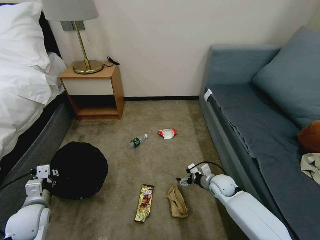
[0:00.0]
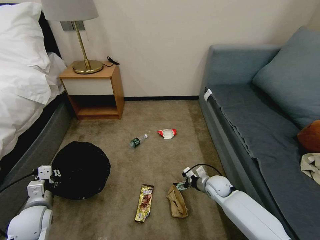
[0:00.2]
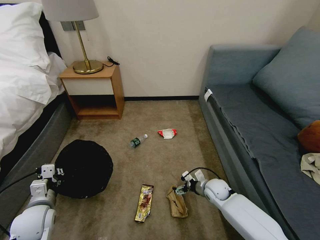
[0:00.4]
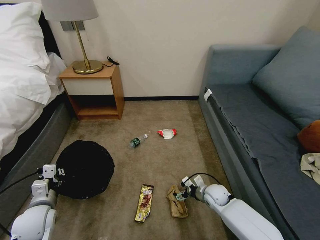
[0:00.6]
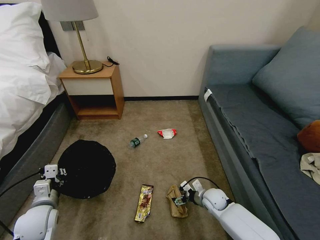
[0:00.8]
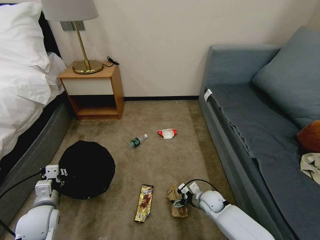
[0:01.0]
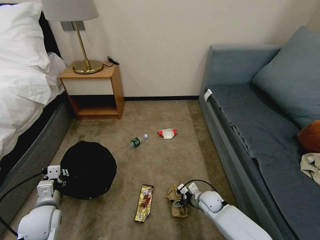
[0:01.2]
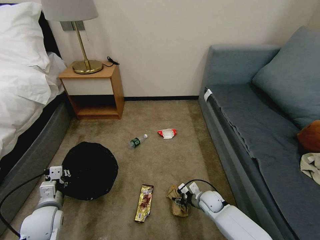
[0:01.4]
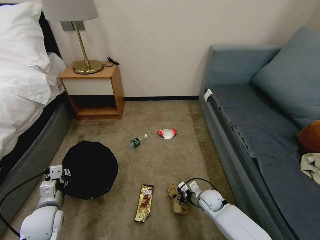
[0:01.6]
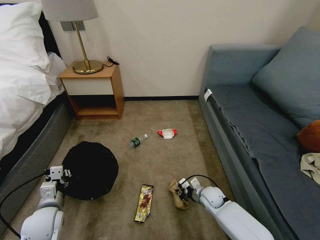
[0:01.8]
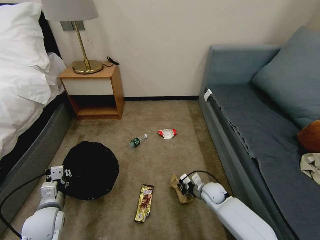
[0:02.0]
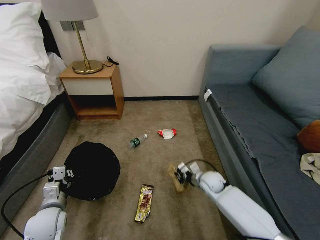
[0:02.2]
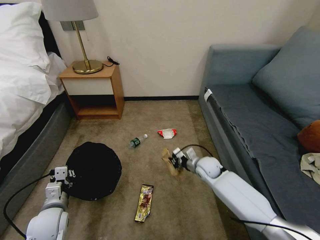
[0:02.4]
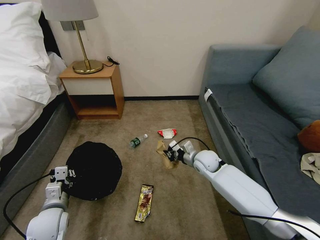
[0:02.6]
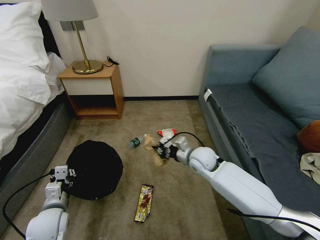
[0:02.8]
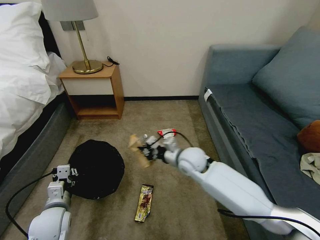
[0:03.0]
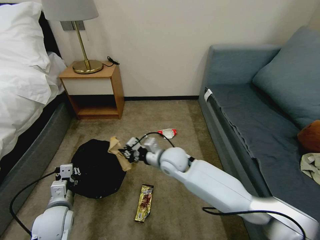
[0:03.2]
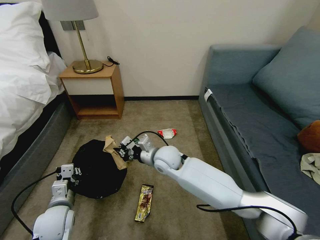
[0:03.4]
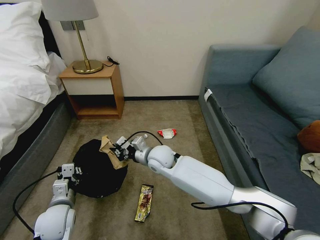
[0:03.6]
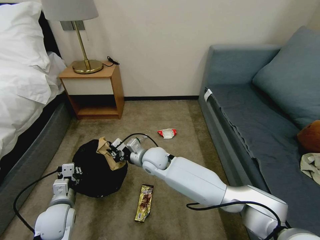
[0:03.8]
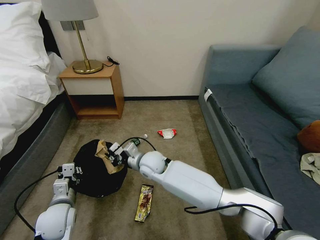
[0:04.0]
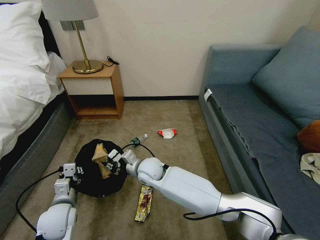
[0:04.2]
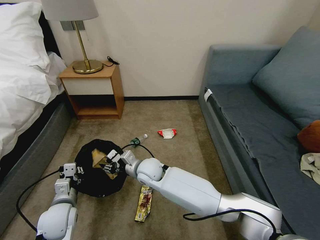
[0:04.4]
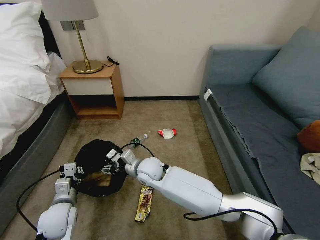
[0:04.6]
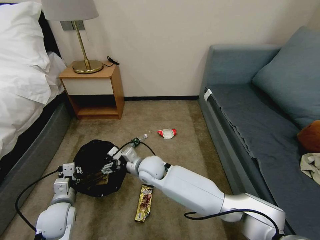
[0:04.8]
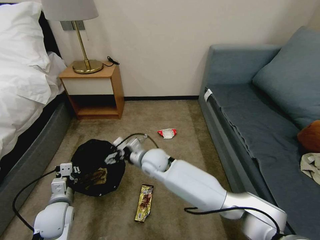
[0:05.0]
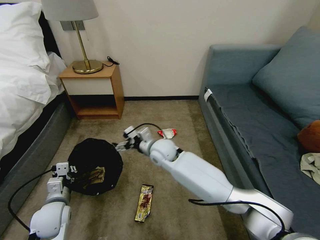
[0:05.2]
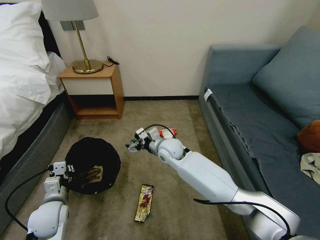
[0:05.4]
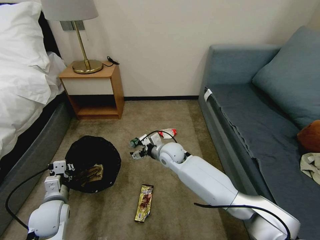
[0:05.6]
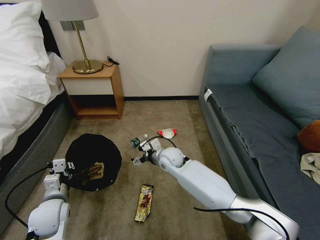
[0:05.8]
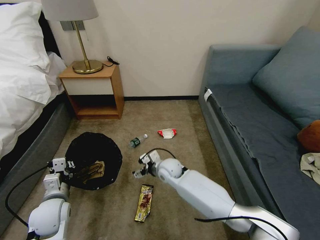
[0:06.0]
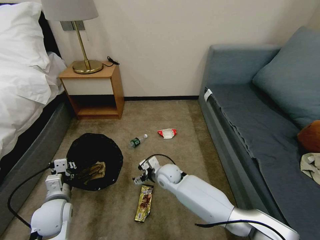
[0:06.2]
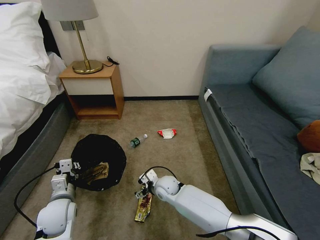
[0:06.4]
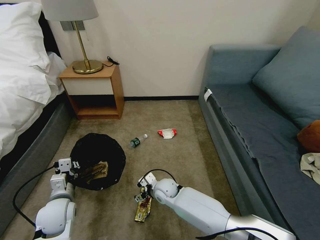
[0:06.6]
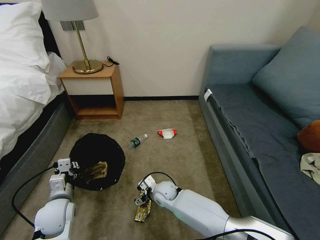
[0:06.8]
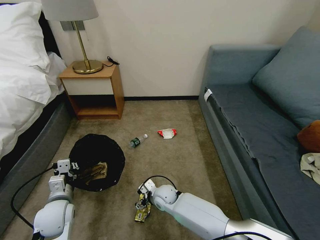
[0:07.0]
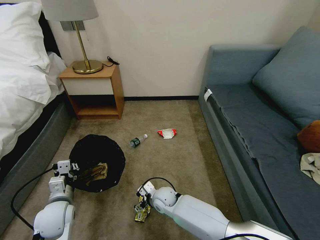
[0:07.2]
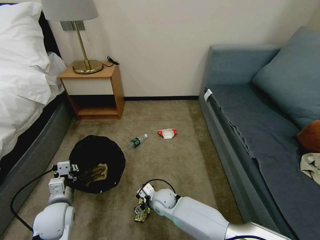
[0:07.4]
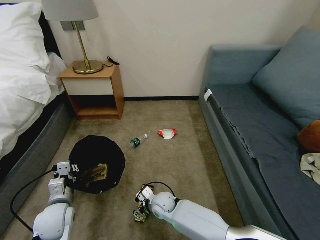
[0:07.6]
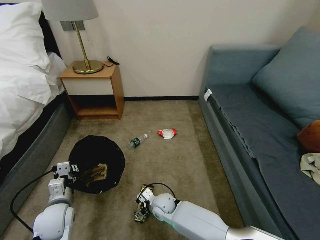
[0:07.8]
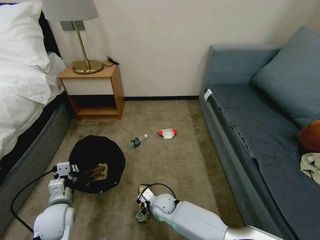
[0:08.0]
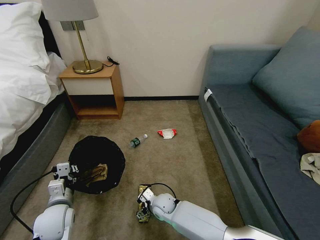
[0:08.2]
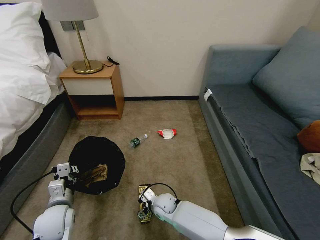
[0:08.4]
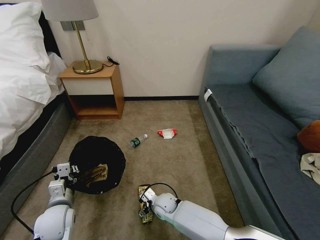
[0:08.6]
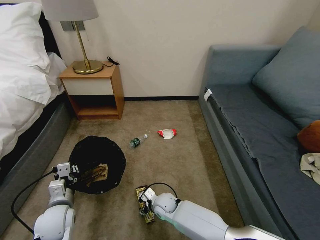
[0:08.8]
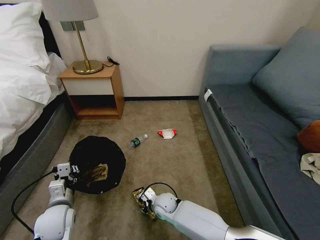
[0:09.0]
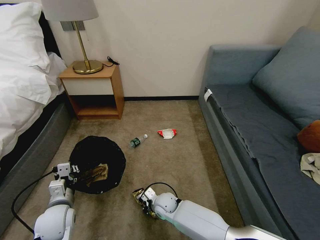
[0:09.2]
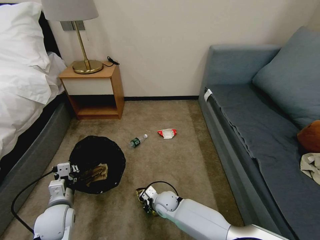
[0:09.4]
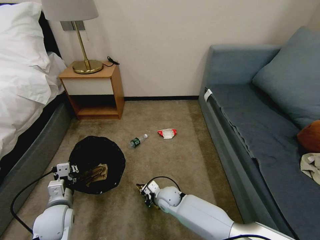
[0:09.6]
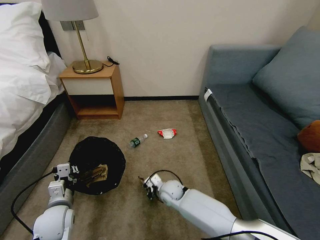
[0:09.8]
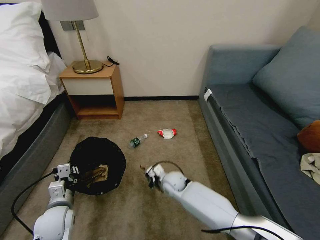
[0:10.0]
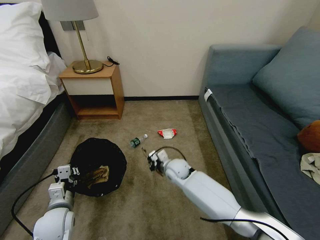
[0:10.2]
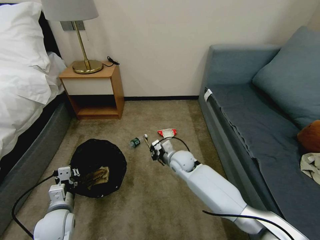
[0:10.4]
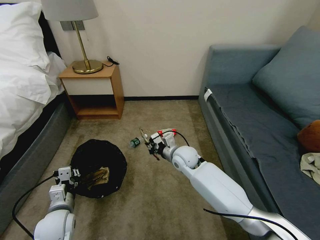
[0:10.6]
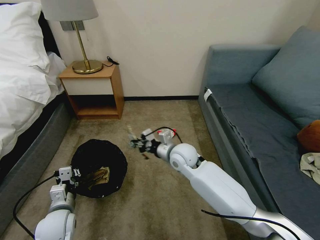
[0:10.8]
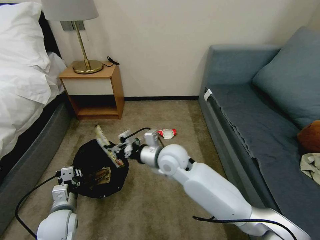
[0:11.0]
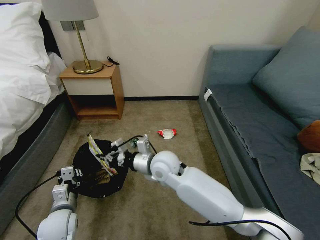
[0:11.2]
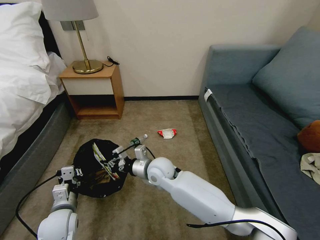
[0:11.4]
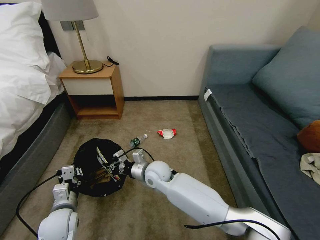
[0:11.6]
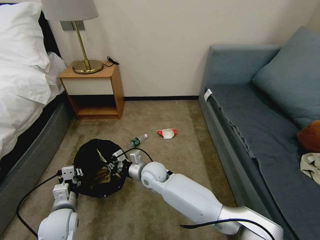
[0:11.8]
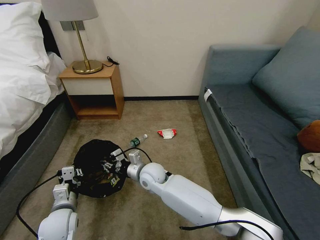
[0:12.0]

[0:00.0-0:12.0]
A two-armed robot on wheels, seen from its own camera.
Task of the whole recording: Pick up the trash bin, then pick up the garbage on the floor and place it into the trash bin.
0:00.0 to 0:01.6: The right gripper shifts some 5 cm downward, and closes up.
0:01.6 to 0:03.0: The right gripper travels upward and to the left by some 25 cm, and closes its fingers.
0:03.0 to 0:04.4: The right gripper moves to the left, some 15 cm, and opens its fingers.
0:04.4 to 0:06.0: The right gripper shifts roughly 10 cm to the right, and opens its fingers.
0:06.0 to 0:07.6: The right gripper heads downward and backward, covering about 15 cm.
0:07.6 to 0:09.0: The right gripper closes its fingers.
0:09.0 to 0:10.4: The right gripper goes roughly 20 cm upward, forward and to the right, and closes its fingers.
0:10.4 to 0:12.0: The right gripper goes some 15 cm to the left and backward, and reaches approximately 15 cm upward, then returns.

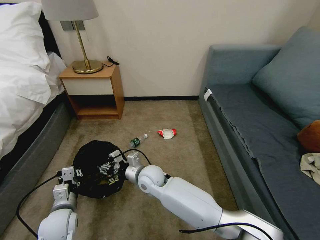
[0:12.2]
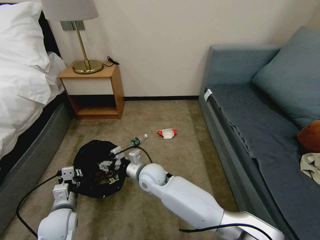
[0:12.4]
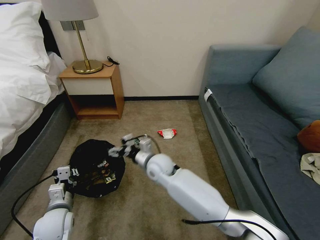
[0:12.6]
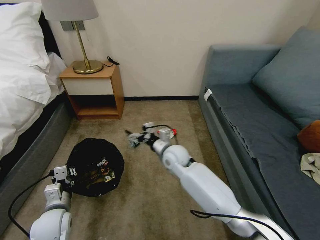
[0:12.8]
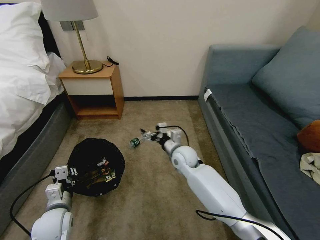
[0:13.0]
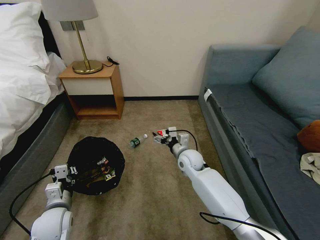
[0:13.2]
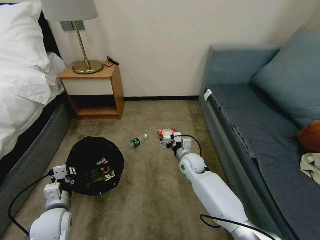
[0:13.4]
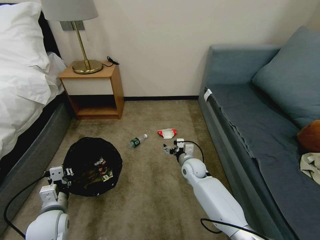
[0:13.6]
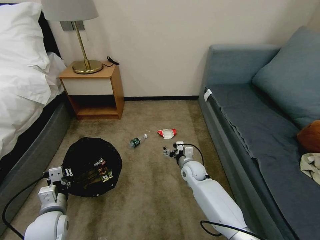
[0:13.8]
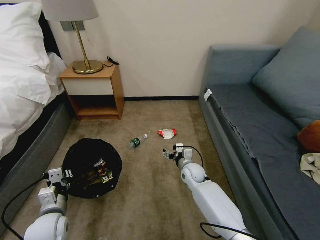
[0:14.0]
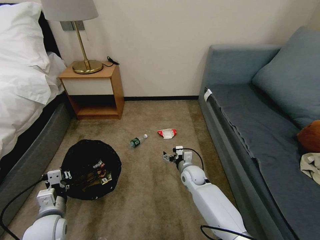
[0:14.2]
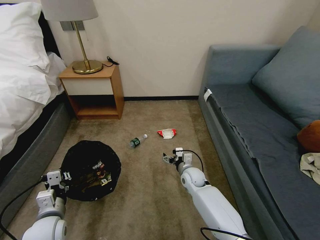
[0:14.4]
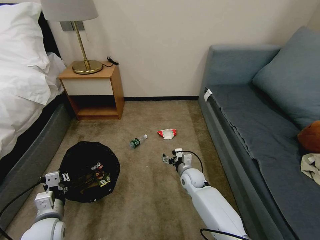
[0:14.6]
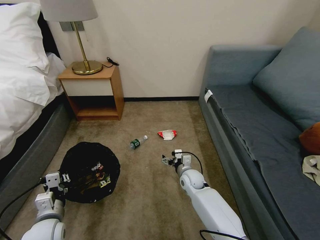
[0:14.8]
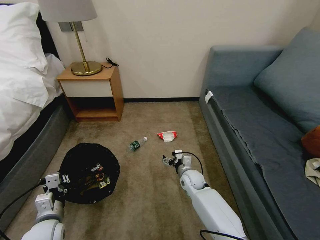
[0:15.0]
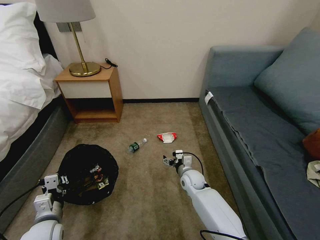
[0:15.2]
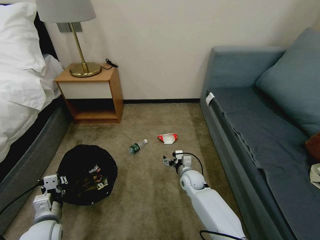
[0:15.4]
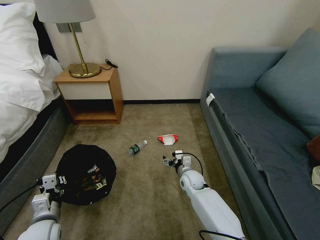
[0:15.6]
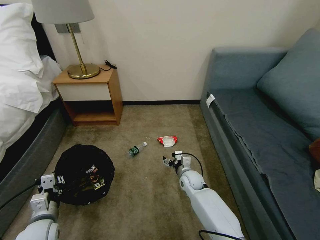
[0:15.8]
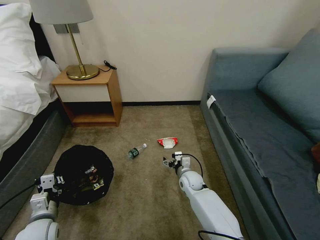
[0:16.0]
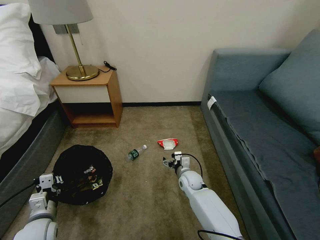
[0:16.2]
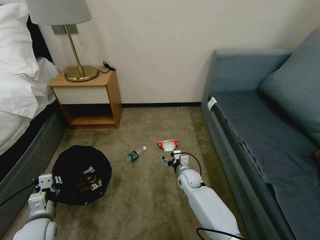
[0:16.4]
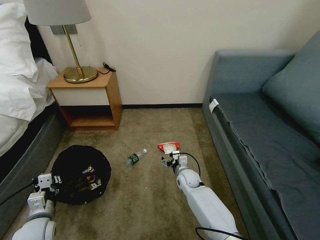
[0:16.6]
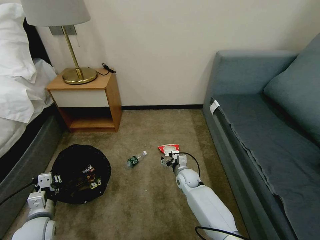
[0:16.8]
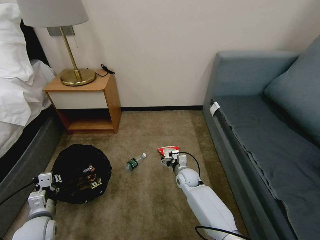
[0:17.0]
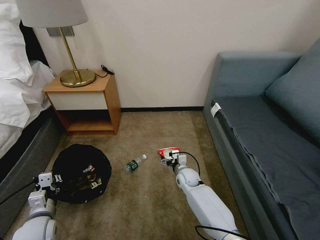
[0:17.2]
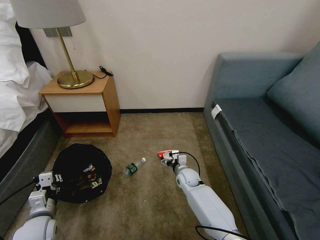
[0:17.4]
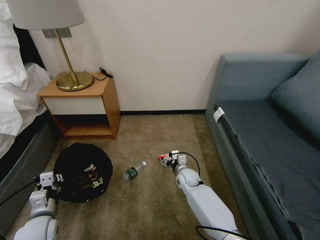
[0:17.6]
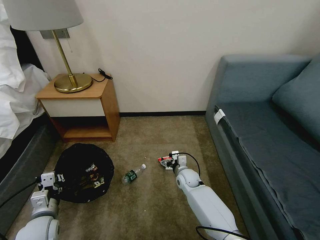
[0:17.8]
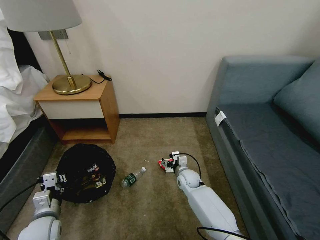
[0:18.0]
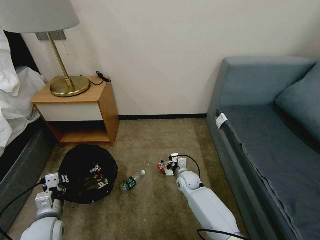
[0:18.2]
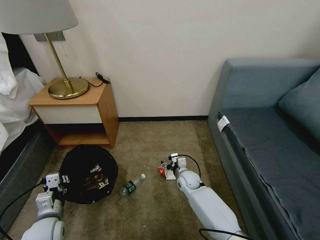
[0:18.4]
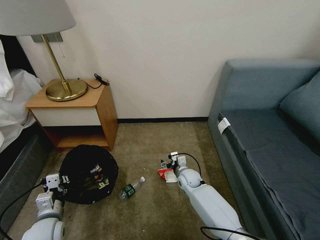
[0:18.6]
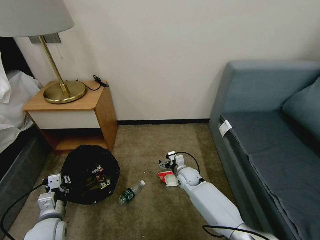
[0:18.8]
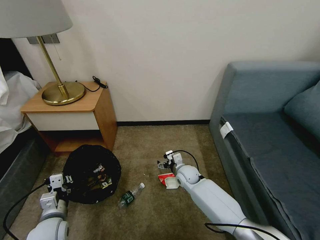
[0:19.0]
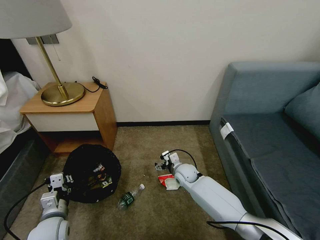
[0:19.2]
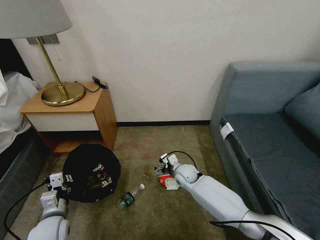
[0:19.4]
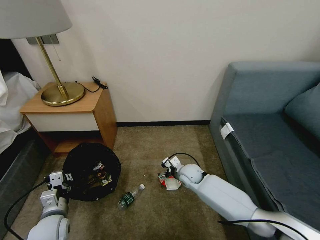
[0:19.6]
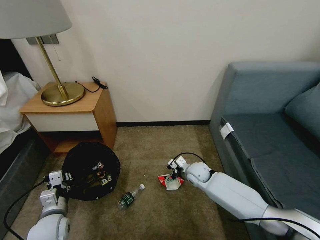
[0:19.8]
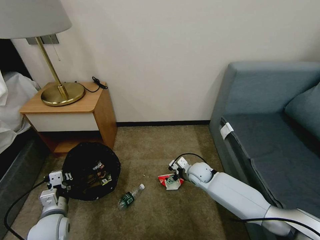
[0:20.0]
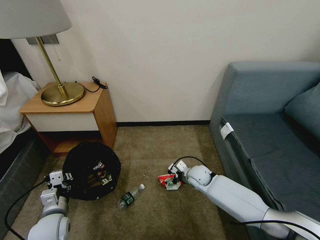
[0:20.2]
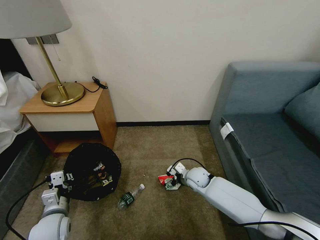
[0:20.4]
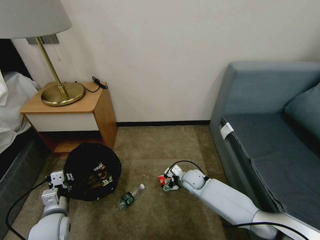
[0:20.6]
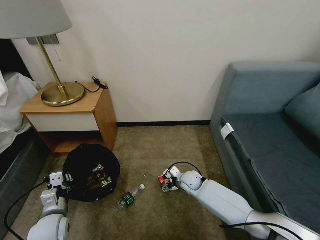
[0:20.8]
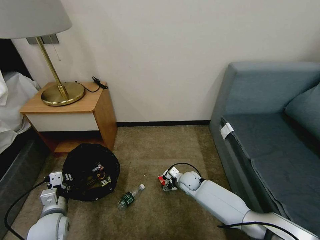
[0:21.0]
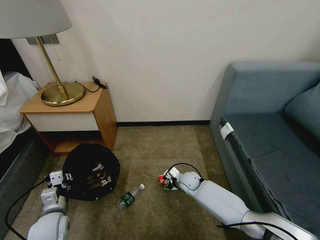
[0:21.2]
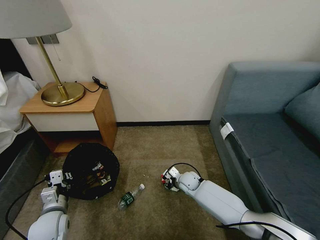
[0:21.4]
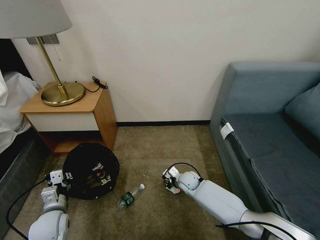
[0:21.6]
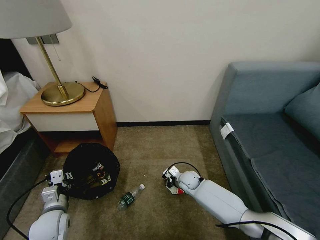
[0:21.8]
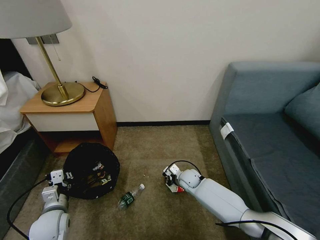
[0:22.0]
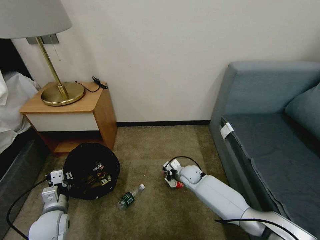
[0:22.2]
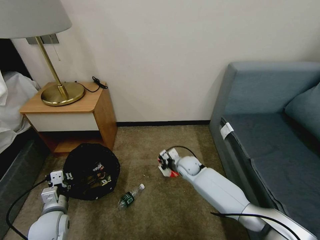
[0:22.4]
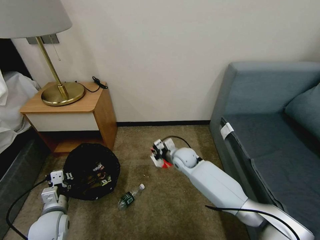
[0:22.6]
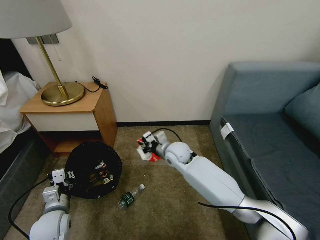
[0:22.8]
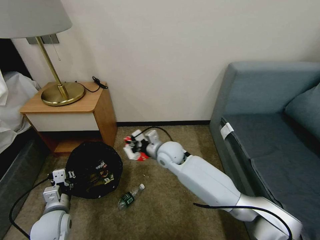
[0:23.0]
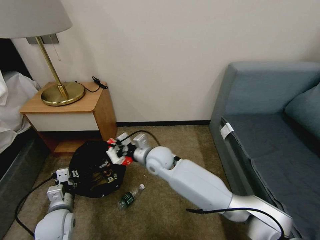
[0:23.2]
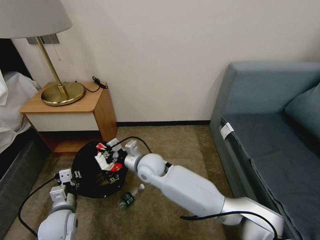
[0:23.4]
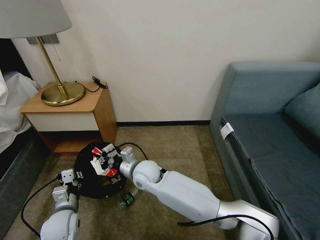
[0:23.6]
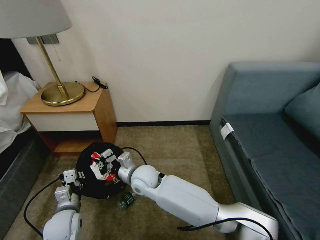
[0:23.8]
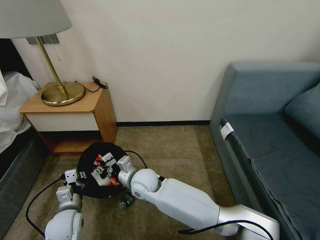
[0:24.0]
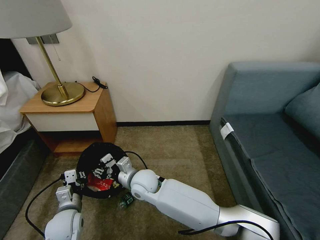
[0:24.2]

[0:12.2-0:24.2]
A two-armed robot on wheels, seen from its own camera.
Task of the whole recording: Pick up the trash bin, then pick up the garbage on the floor and place it into the trash bin.
0:12.2 to 0:13.8: The right gripper heads to the right, covering some 20 cm, and opens up.
0:13.8 to 0:15.2: The grippers make only small movements.
0:18.2 to 0:19.8: The right gripper travels upward by some 5 cm.
0:19.8 to 0:21.2: The right gripper heads downward, covering about 5 cm, and closes its fingers.
0:21.2 to 0:22.6: The right gripper shifts about 10 cm upward, and closes its fingers.
0:22.6 to 0:24.2: The right gripper moves to the left and backward, approximately 20 cm, and opens up.
